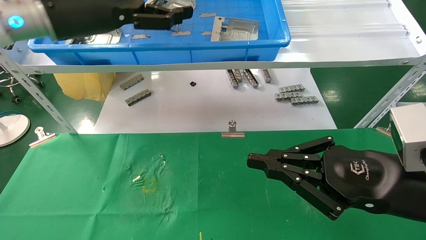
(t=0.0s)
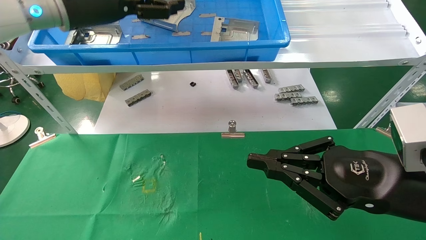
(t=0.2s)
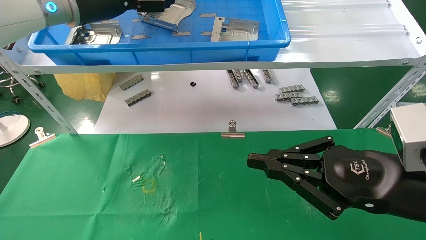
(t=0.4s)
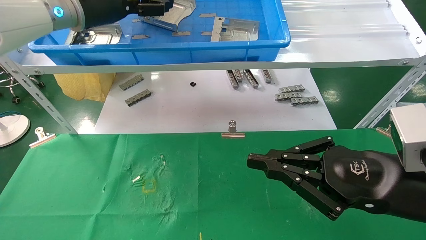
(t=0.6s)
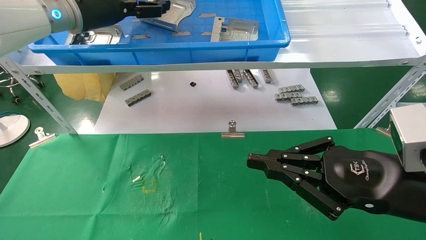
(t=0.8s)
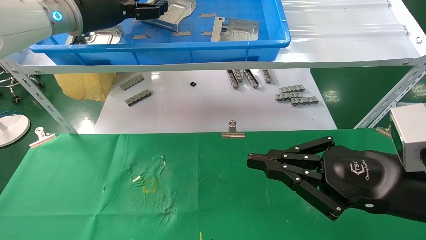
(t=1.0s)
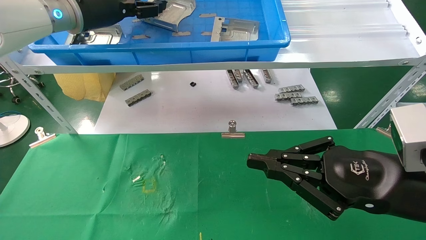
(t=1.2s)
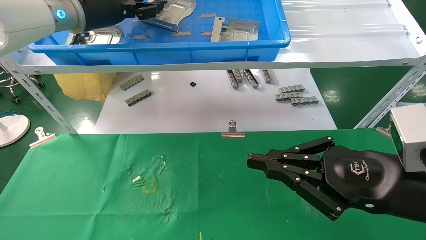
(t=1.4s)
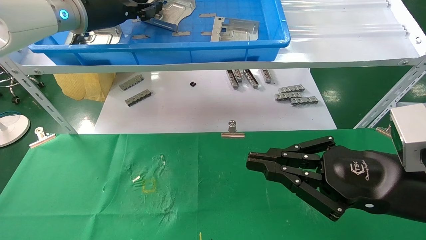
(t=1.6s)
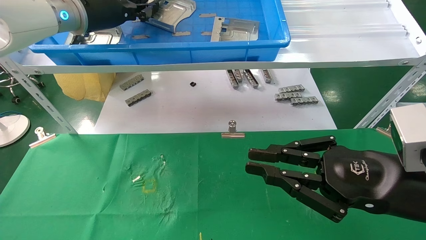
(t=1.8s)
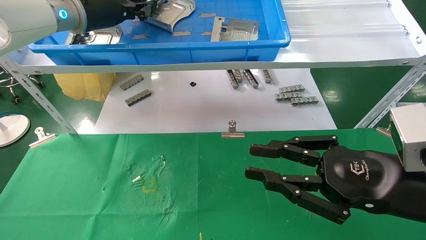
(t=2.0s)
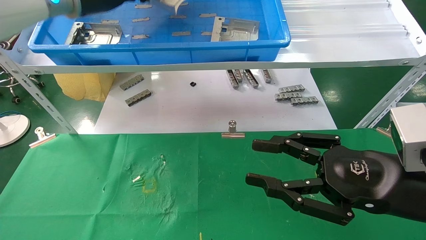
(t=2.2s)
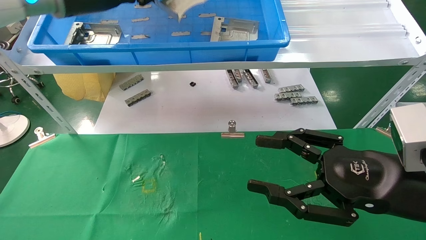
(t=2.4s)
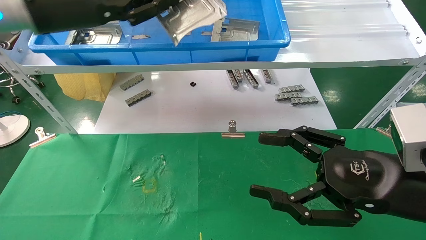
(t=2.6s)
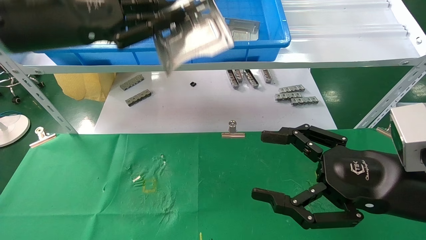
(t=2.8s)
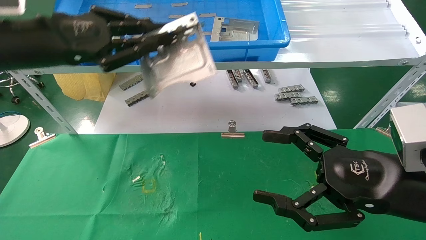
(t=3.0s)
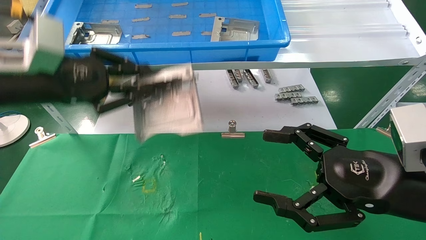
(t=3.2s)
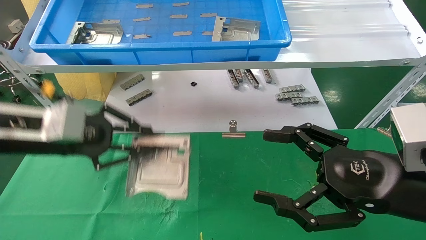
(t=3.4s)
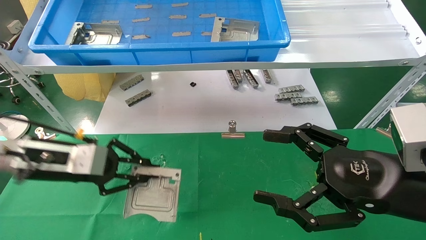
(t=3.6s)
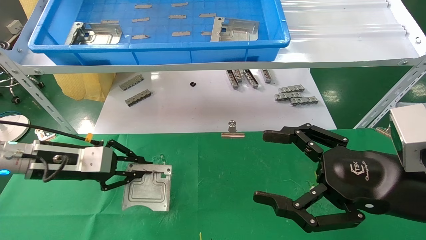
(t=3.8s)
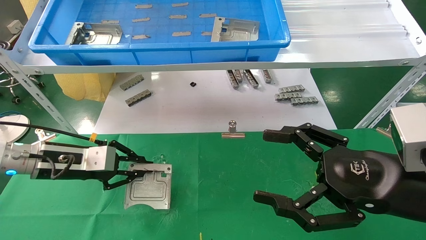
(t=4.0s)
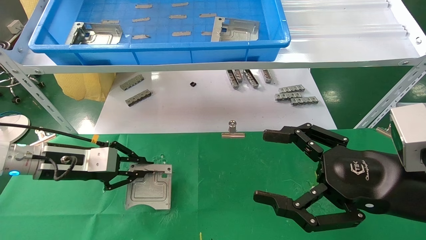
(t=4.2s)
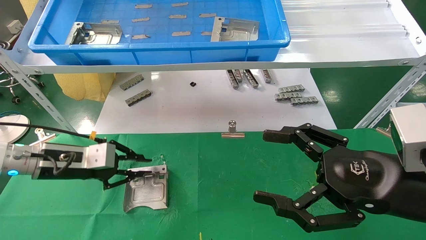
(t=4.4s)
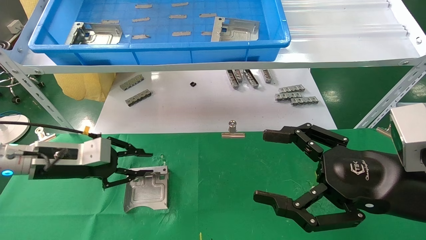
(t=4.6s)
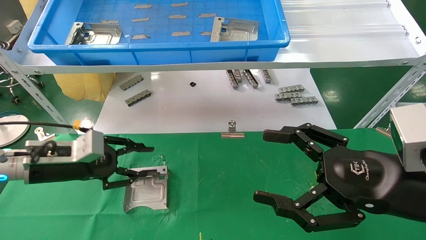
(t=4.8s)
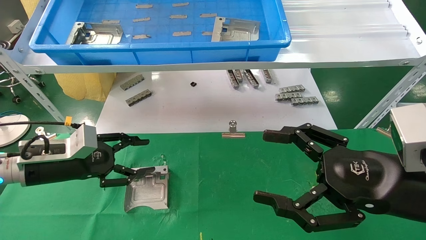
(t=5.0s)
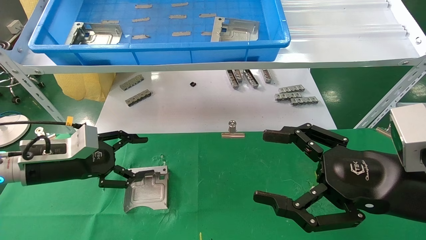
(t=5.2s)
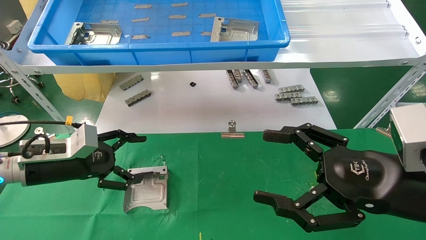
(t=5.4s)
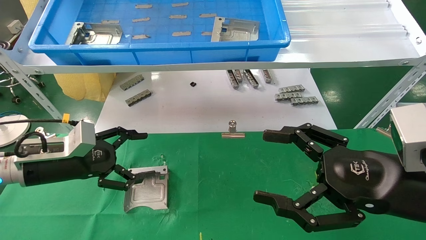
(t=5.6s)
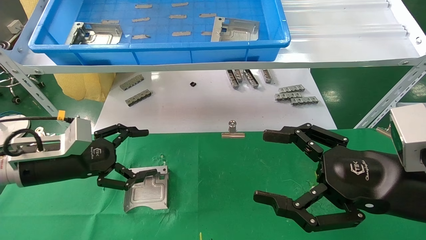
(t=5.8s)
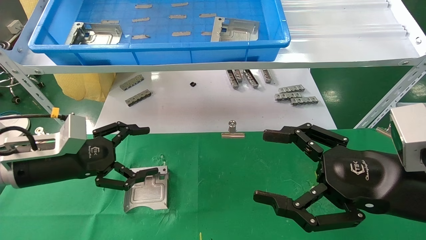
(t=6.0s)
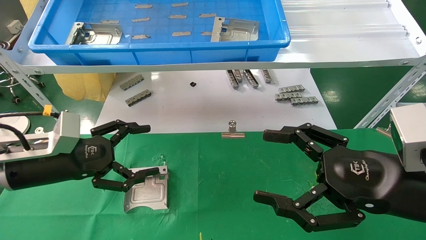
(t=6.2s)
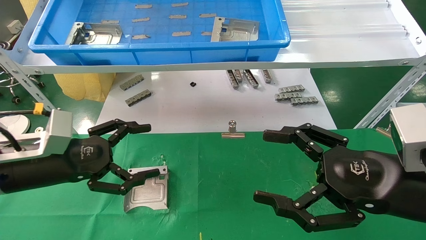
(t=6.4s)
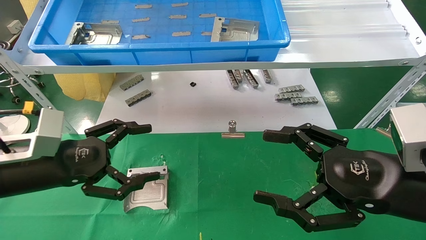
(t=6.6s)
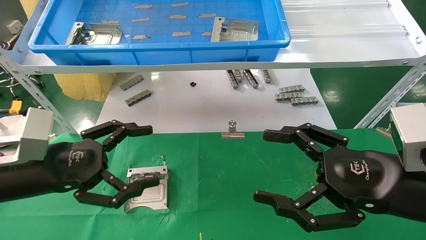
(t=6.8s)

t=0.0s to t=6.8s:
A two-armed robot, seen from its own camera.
Task of the whole recording: use the mechanical arm to pick up the parts and place them on the table.
Step, t=0.0s to t=1.8s: Pick up the hard drive bracket from the feeding area.
Step, t=2.0s to t=4.8s: Place the hard drive bracket into the box.
t=0.0s to t=1.4s: The left gripper travels forward by approximately 10 cm, and closes its fingers.
t=1.4s to t=2.8s: The left gripper goes roughly 10 cm backward, and closes. The right gripper opens its fingers.
t=2.8s to t=4.0s: The left gripper shifts about 25 cm downward.
t=4.0s to t=5.4s: The left gripper opens its fingers.
t=5.4s to t=6.8s: The left gripper is displaced backward by about 10 cm.
